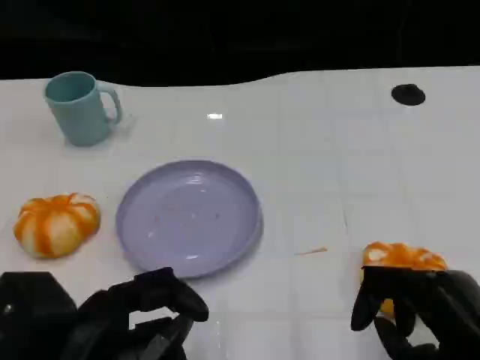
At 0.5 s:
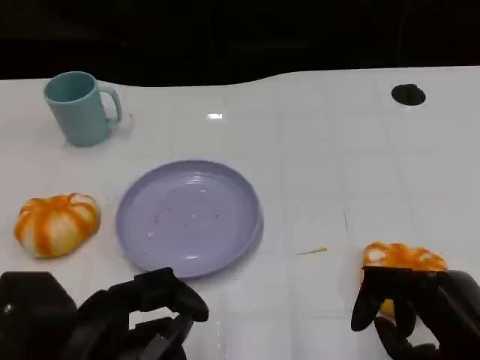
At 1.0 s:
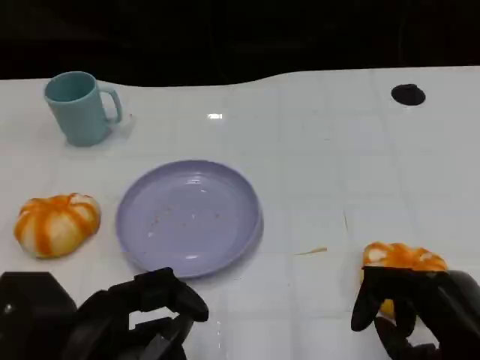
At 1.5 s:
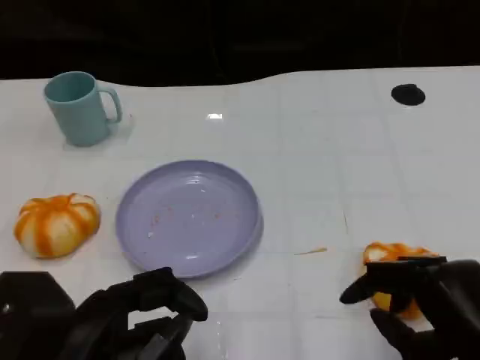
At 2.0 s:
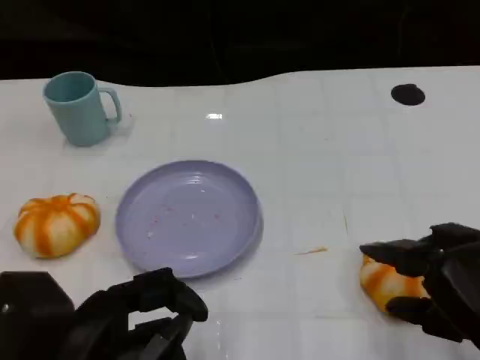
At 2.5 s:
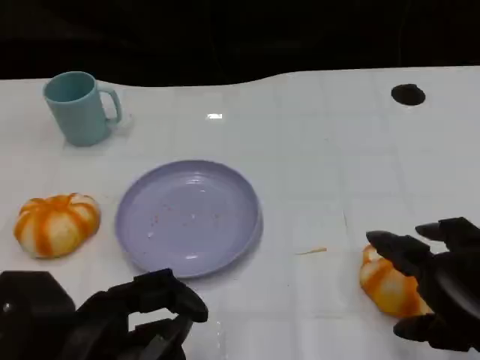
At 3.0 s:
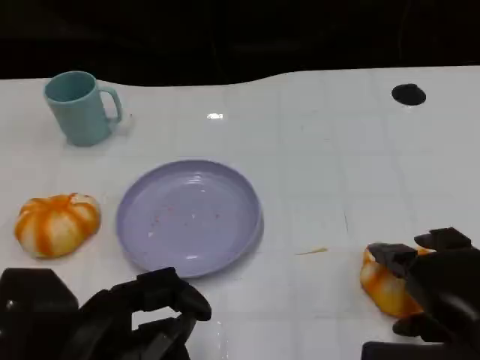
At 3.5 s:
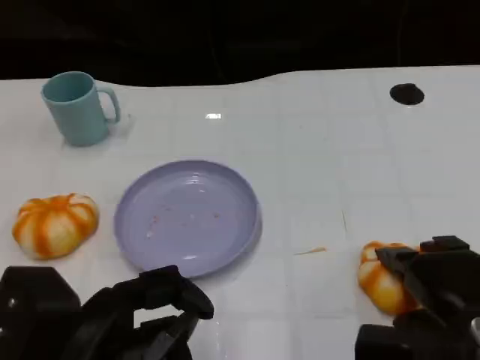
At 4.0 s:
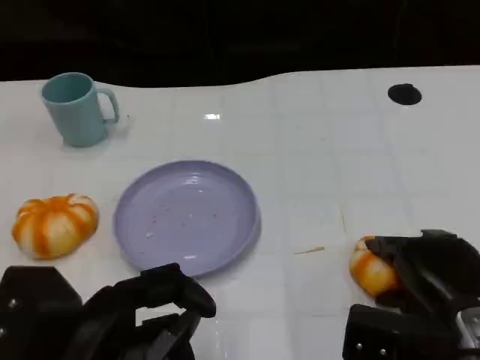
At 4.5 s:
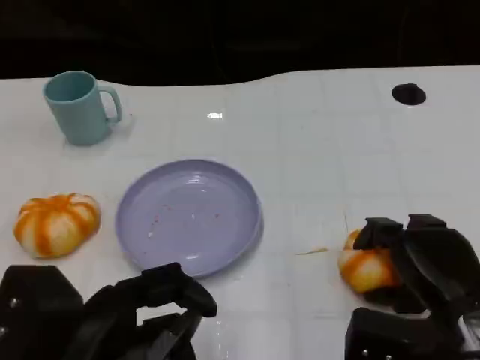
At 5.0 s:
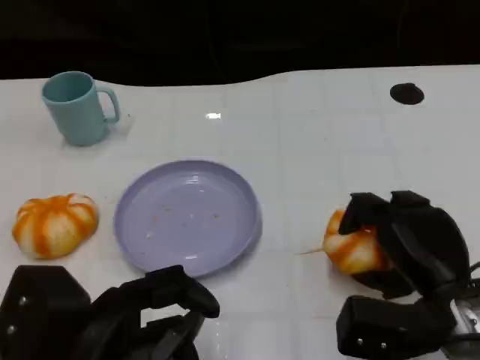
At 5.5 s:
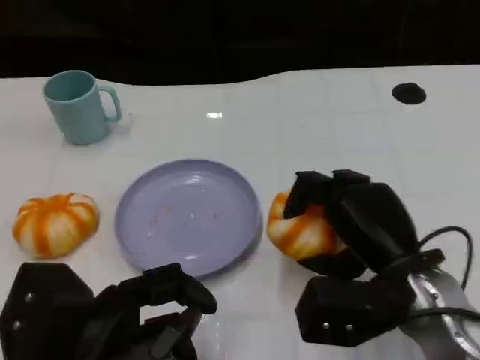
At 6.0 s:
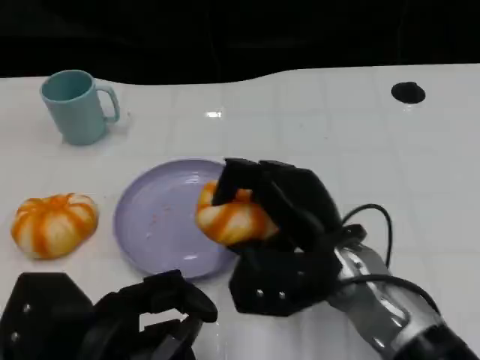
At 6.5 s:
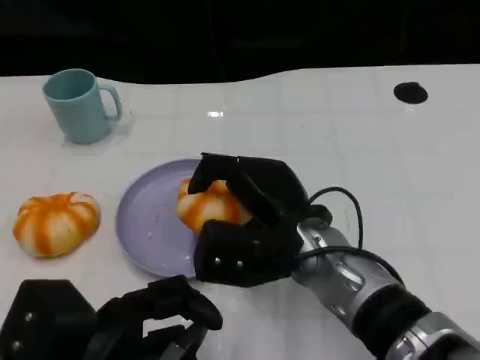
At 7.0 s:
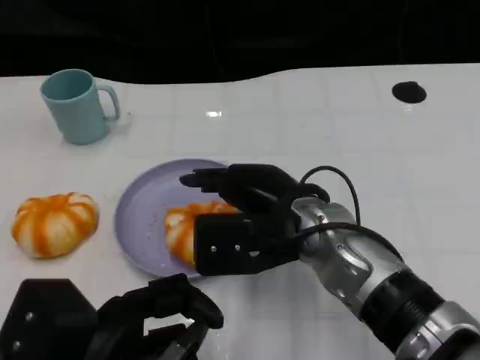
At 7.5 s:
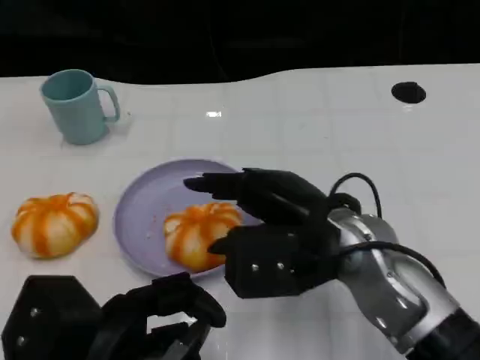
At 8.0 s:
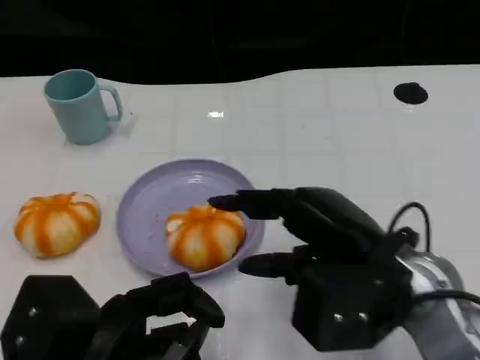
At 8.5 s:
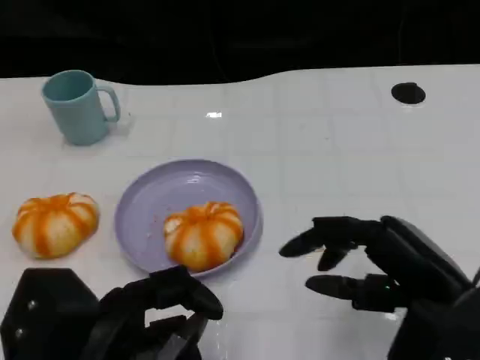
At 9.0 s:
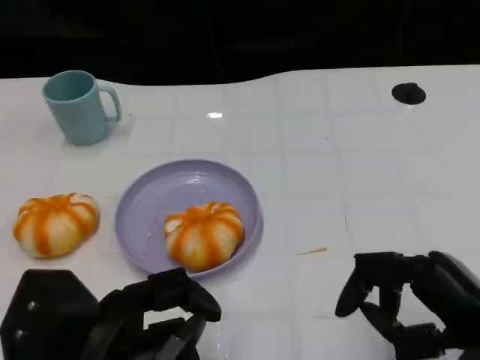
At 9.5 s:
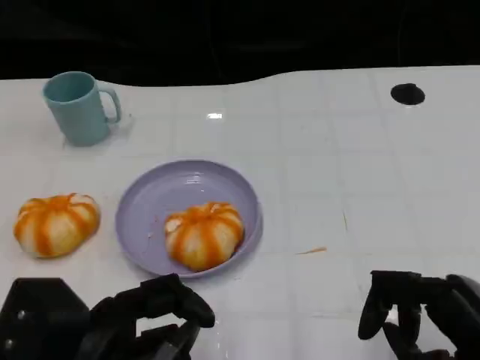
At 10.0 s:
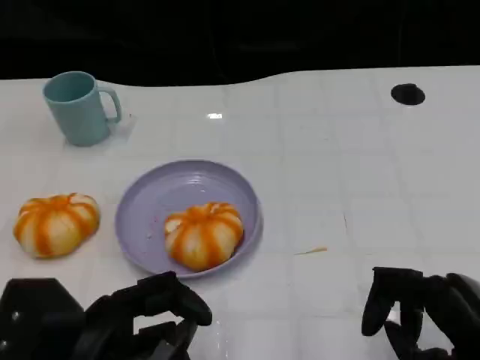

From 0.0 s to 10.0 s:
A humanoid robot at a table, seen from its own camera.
Task of the whole recording: Grasp the bread from the table and place it into the plate.
From 2.0 s to 4.0 s: The right hand travels downward and forward by approximately 10 cm.
From 4.0 s to 6.0 s: The right hand is displaced to the left by some 15 cm.
From 6.0 s to 8.0 s: The right hand goes roughly 5 cm to the right.
From 8.0 s to 10.0 s: The right hand heads to the right and backward, covering roughly 10 cm.

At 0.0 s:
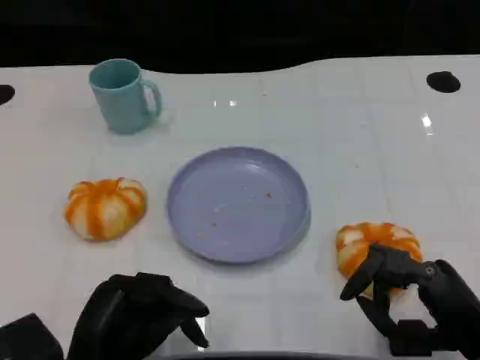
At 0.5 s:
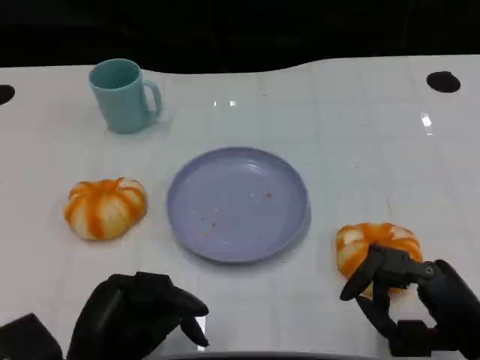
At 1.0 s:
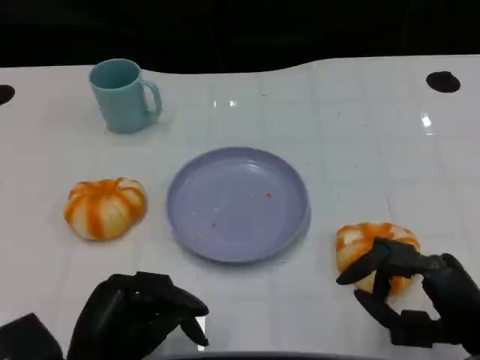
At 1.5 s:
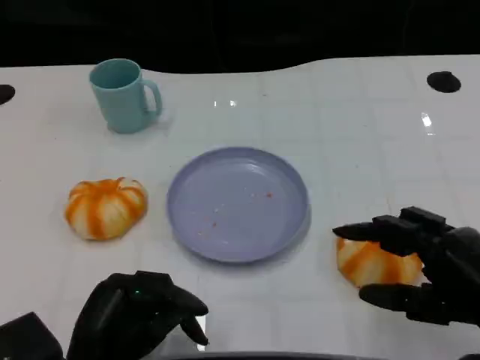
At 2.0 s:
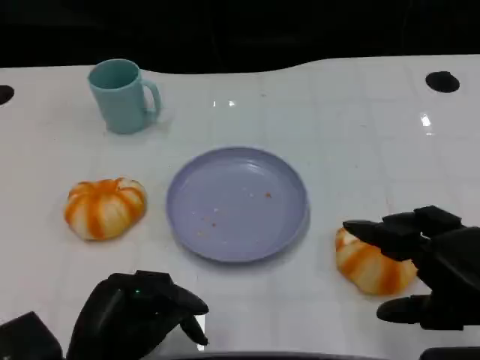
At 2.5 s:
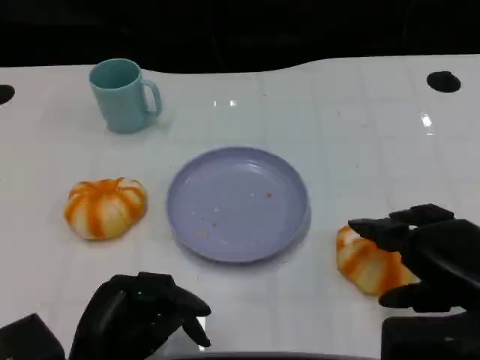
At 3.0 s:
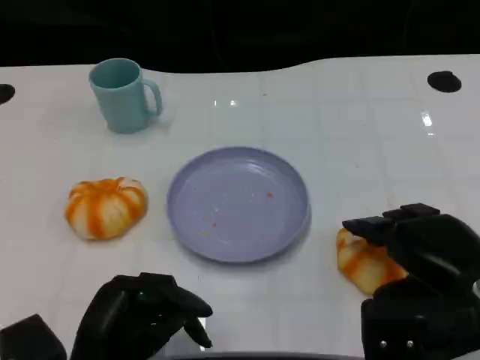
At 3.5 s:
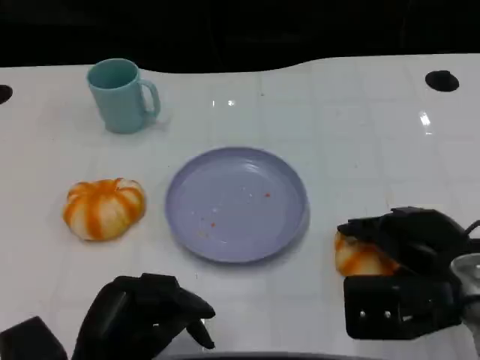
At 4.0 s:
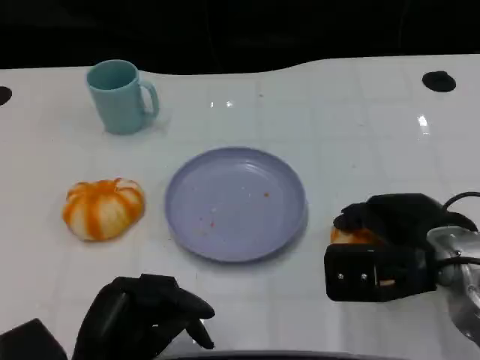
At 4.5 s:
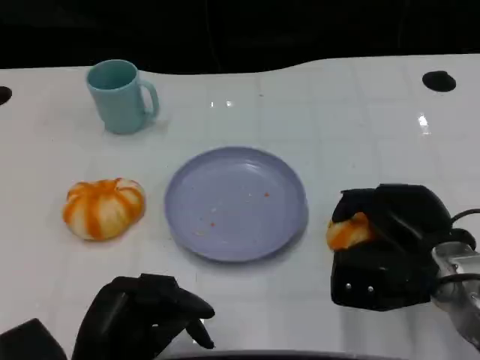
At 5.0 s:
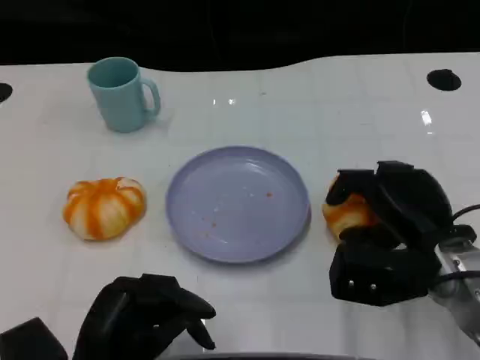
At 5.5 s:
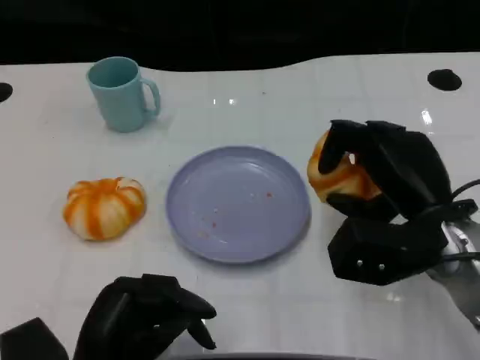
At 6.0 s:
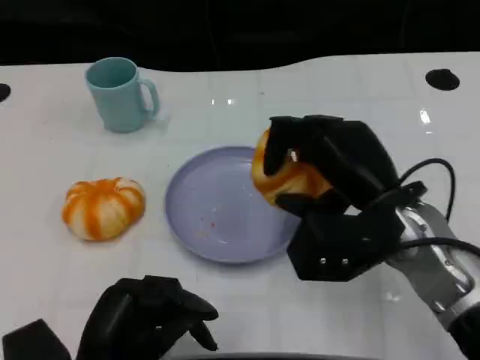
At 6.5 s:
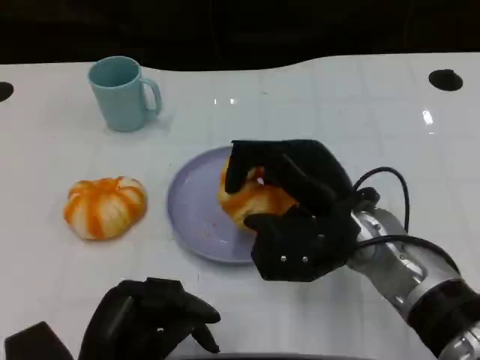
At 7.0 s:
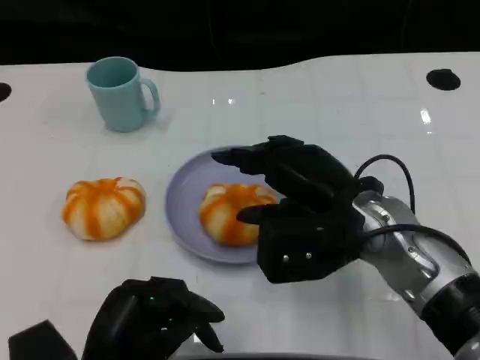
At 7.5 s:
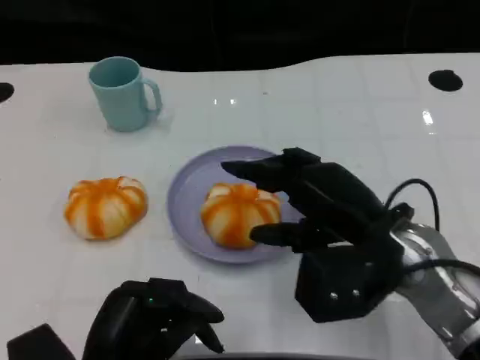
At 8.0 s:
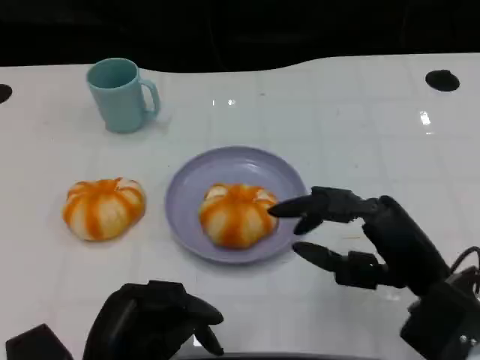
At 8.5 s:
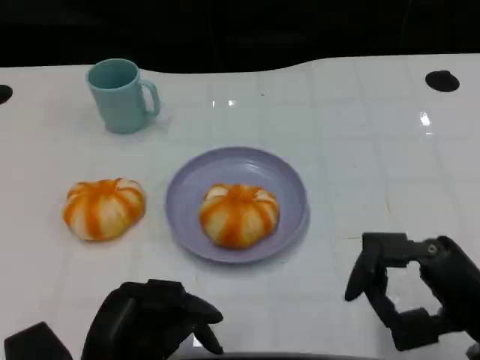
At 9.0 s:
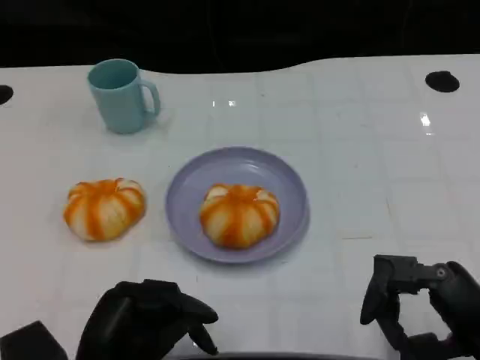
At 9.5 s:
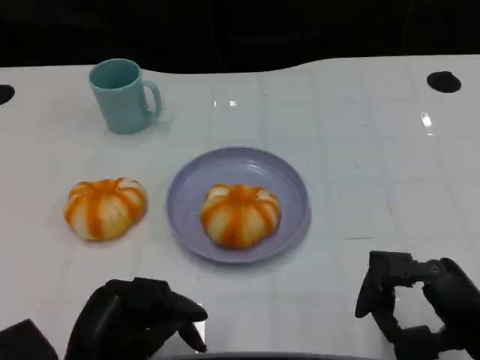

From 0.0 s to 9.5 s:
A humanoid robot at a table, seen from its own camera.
Task of the whole recording: Grasp the bread from the table and place it into the plate.
From 0.0 s to 2.0 s: The right hand moves upward, approximately 10 cm.
From 2.0 s to 4.0 s: The right hand travels forward and to the left by some 10 cm.
From 7.5 s to 9.5 s: The right hand travels to the right, backward and downward by about 15 cm.

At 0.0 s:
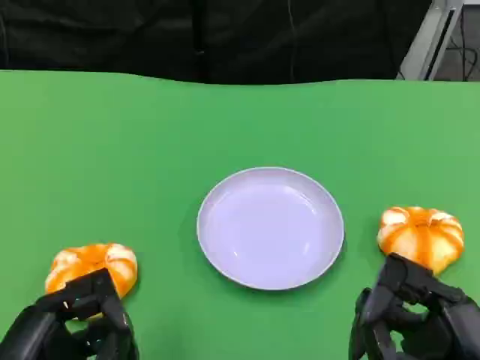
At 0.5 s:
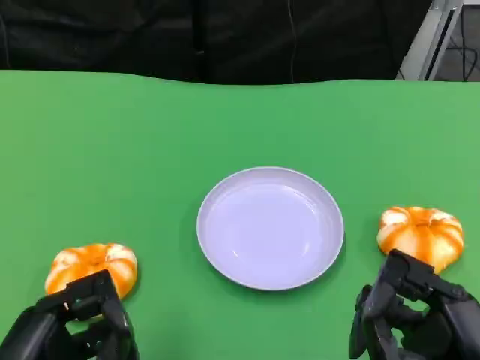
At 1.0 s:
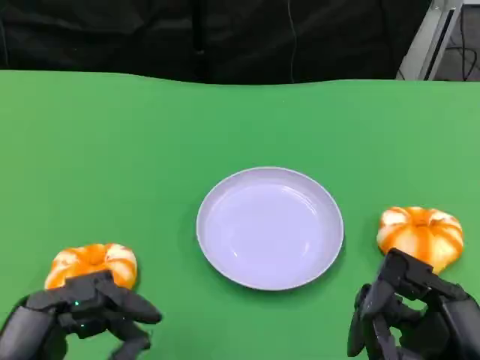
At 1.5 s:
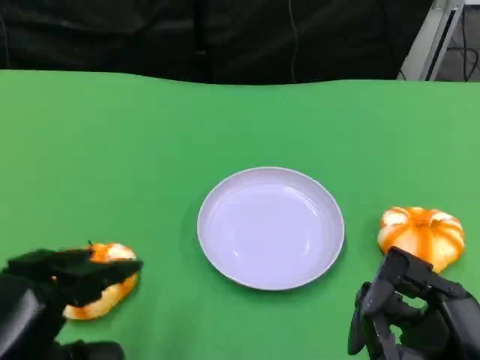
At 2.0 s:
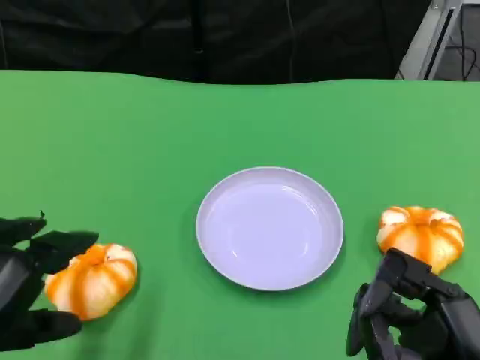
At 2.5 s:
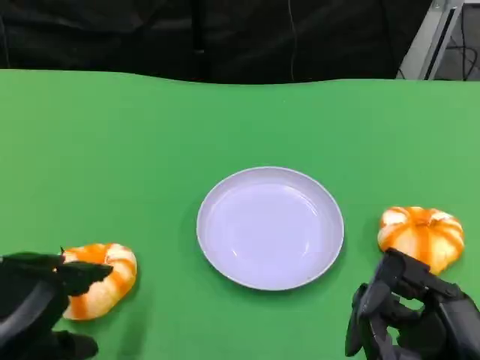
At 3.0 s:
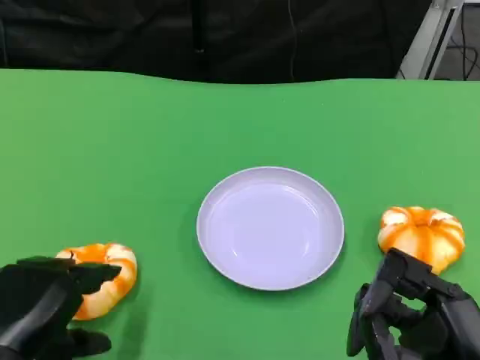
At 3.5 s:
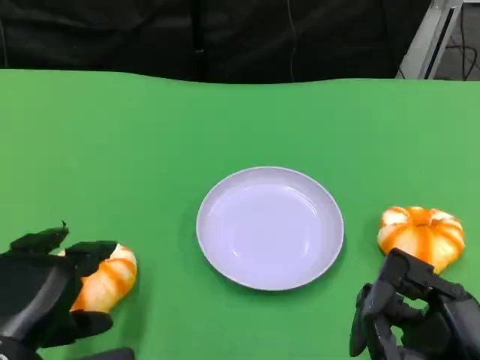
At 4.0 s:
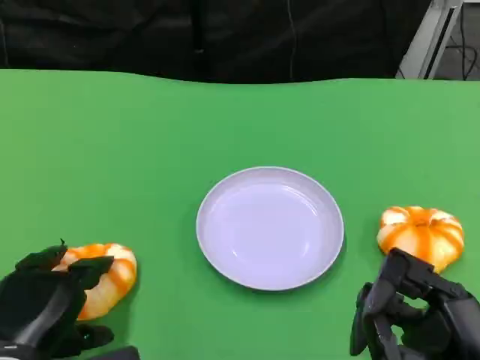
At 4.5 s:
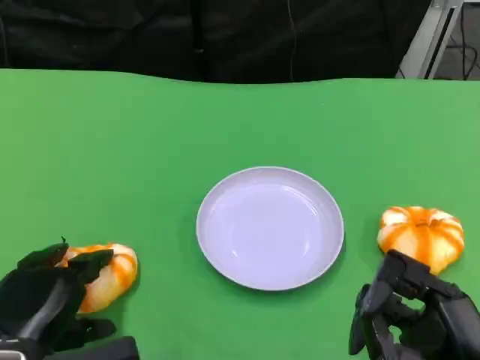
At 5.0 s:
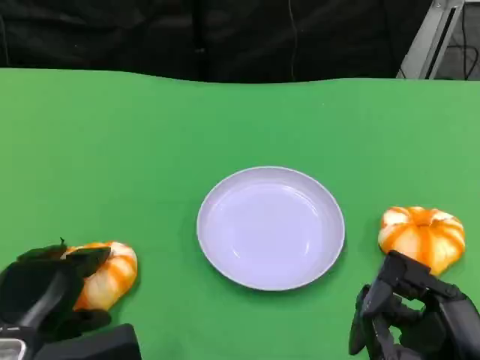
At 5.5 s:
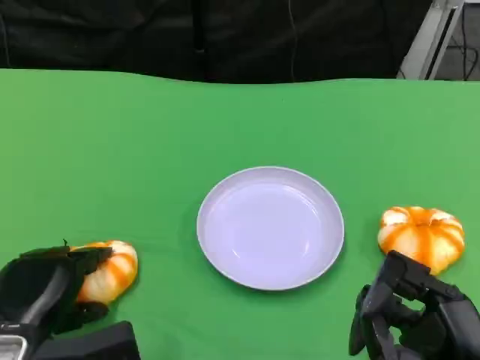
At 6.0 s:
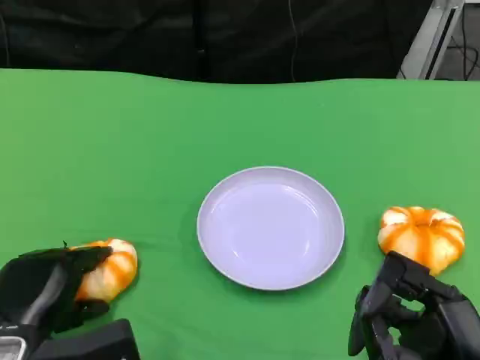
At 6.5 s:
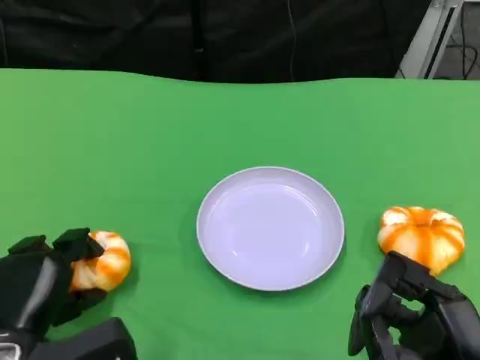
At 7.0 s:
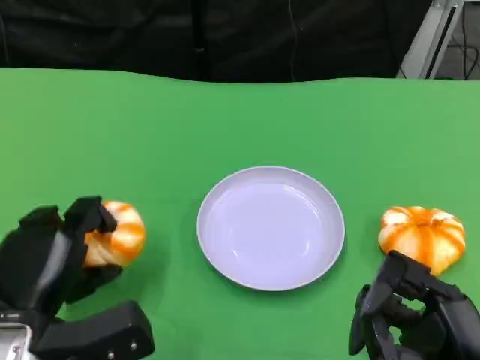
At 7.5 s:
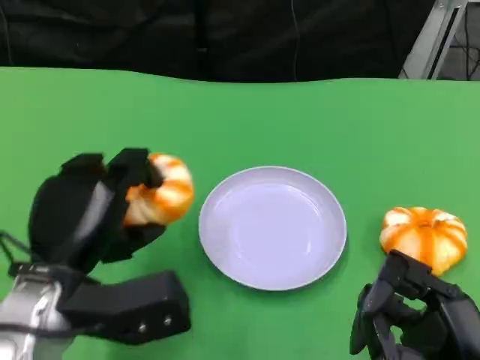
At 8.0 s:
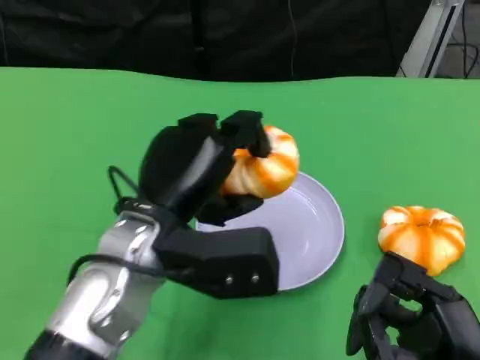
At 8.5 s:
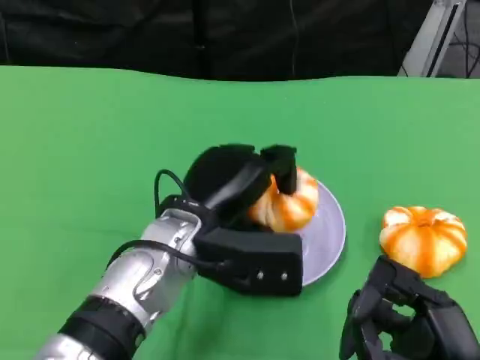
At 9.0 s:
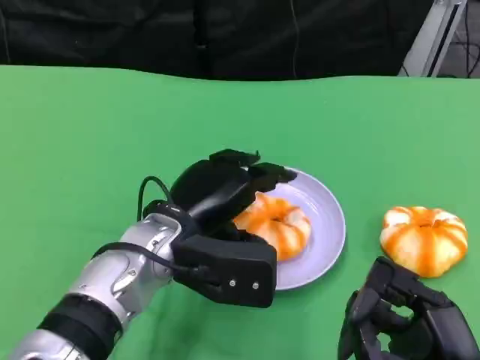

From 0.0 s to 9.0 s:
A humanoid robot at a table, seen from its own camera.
Task of the whole recording: Grasp the bread from the table and place it into the plate.
From 0.0 s to 2.0 s: The left hand moves roughly 5 cm.
From 2.0 s to 4.5 s: The left hand travels downward by roughly 10 cm.
From 7.0 s to 9.0 s: The left hand goes some 15 cm to the right and forward.
